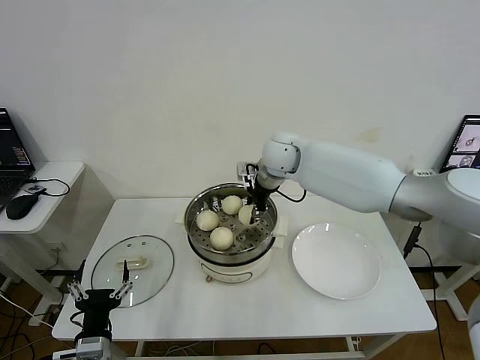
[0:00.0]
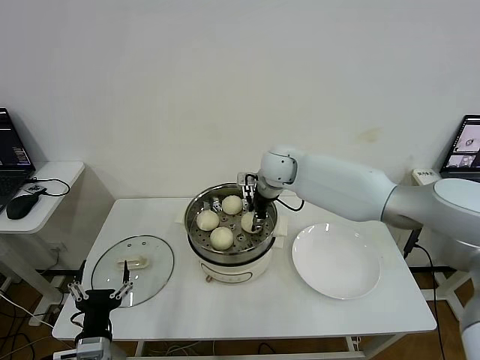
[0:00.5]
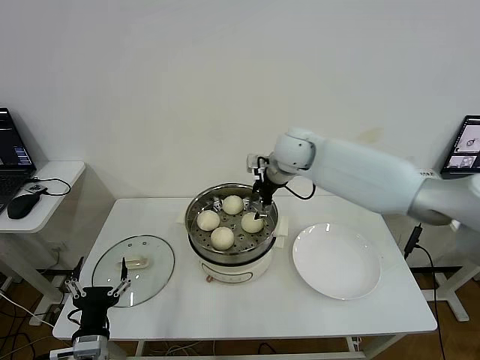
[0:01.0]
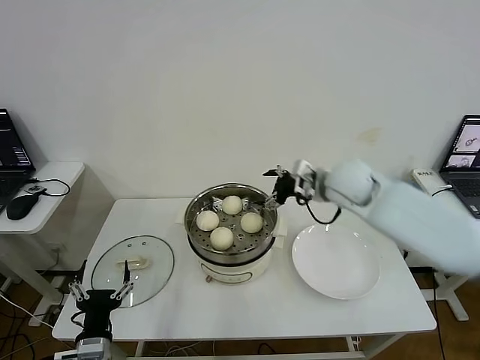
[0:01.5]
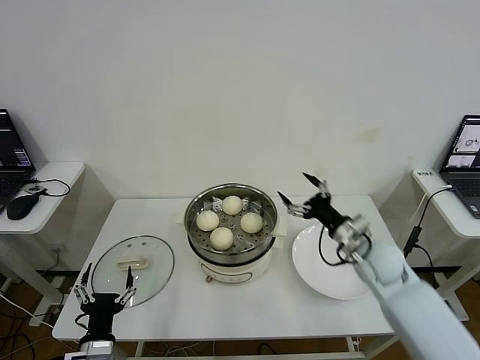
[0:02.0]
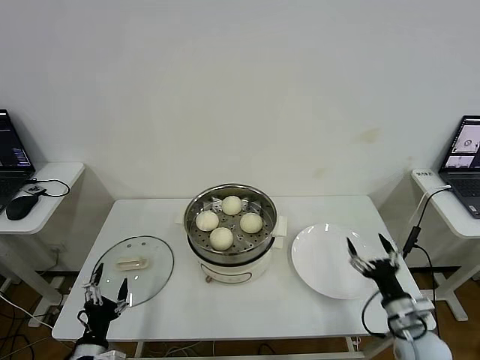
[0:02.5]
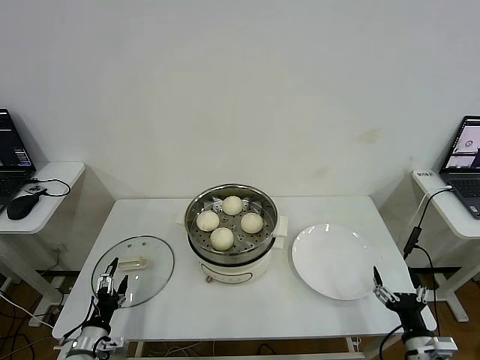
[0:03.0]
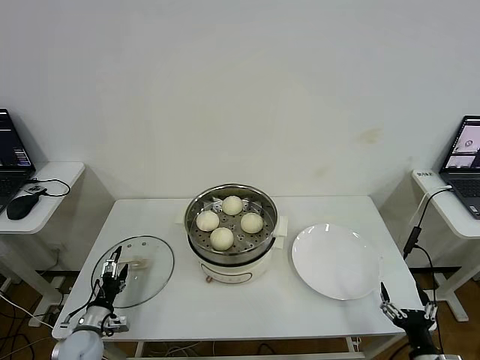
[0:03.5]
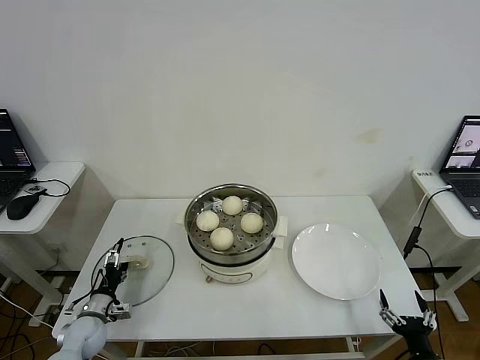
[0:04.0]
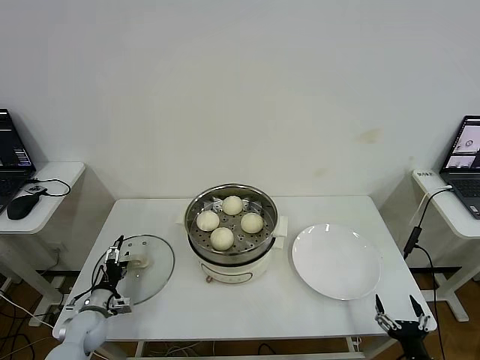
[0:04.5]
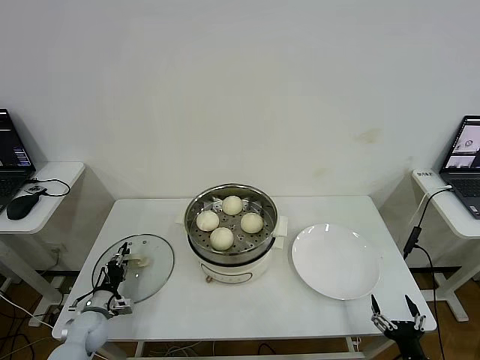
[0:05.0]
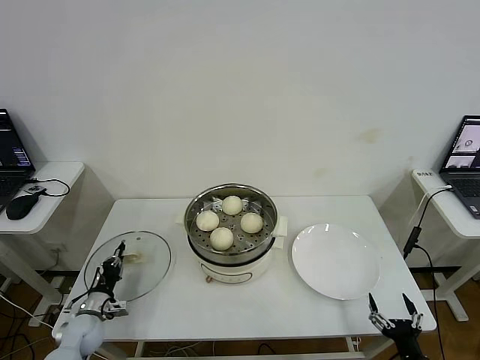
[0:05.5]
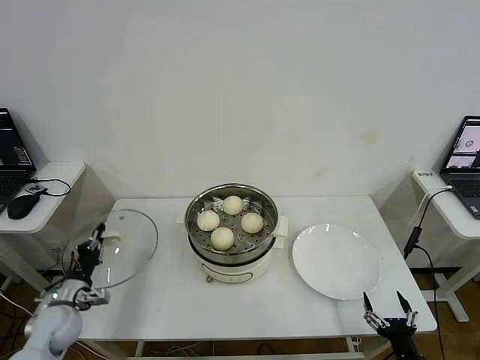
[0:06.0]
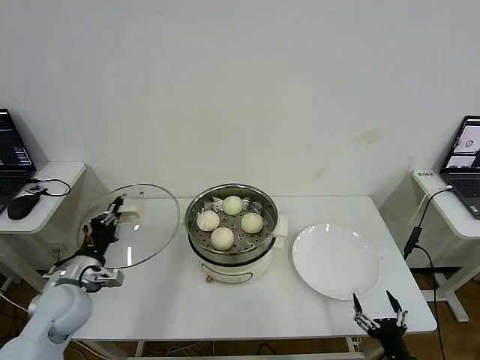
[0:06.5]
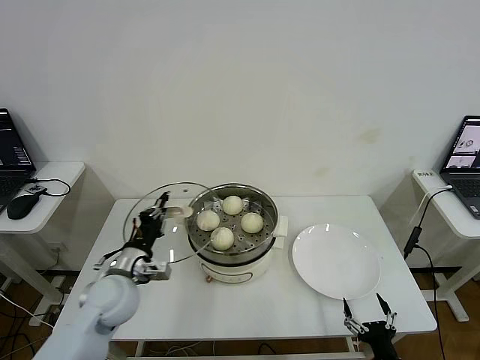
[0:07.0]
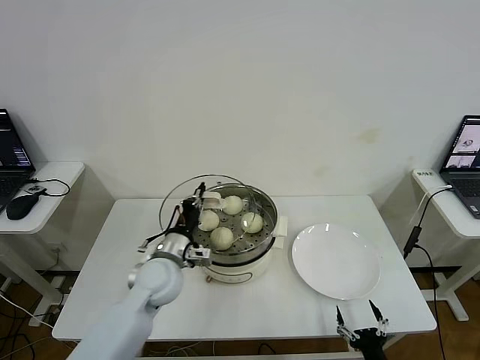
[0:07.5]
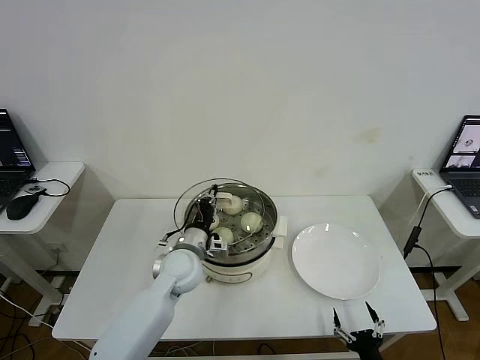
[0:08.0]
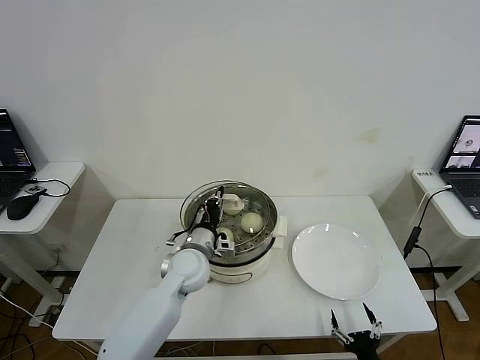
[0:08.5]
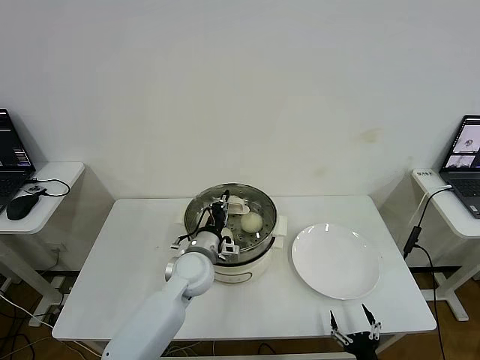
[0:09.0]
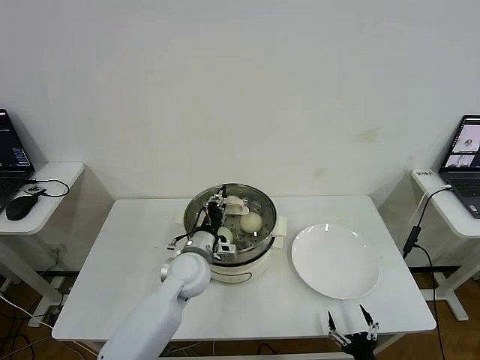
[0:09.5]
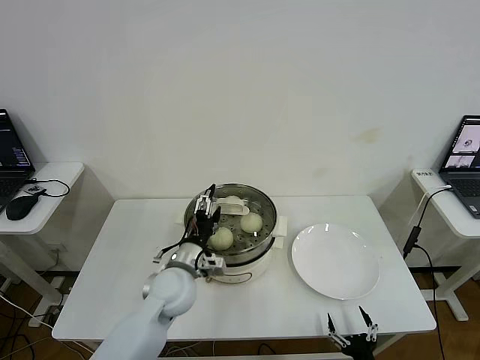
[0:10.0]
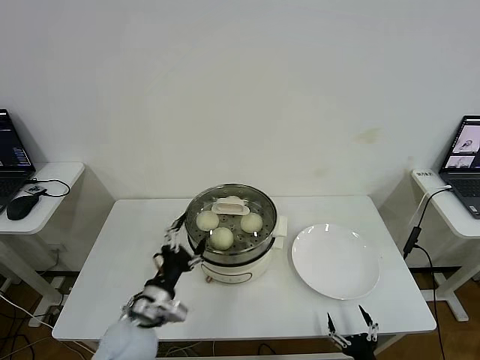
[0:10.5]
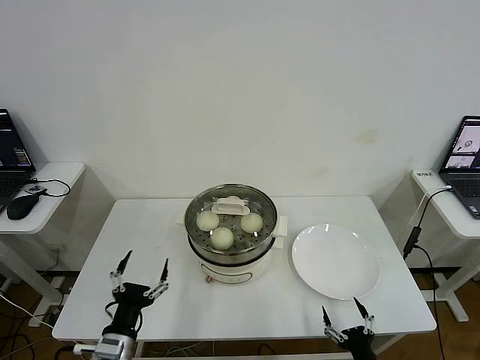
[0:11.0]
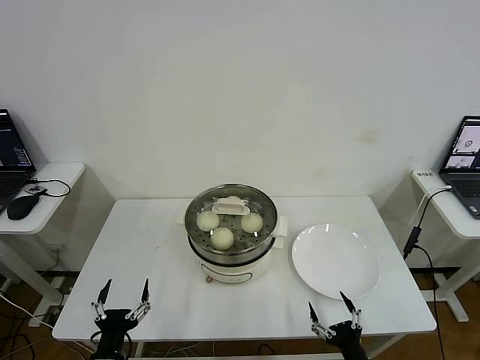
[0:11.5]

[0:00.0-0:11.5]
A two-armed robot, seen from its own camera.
Step, 0:01.5 to 0:05.0: Grasp the pot lid with left gripper.
Step, 0:06.0 to 0:10.5: Place the pot lid on the steamer with left gripper.
0:00.0 to 0:02.0: The right gripper shifts approximately 30 cm to the right, backward and downward, and opens its fingers.
0:02.0 to 0:04.0: The right gripper shifts some 30 cm backward and downward. Meanwhile the left gripper heads forward, to the left and downward, covering approximately 20 cm.
0:04.0 to 0:06.0: The left gripper heads upward, covering some 10 cm, and closes.
0:06.0 to 0:07.5: The left gripper travels to the right and upward by approximately 25 cm. Meanwhile the right gripper heads to the left, covering approximately 5 cm.
0:07.5 to 0:09.5: The left gripper heads to the right, covering roughly 5 cm.
0:09.5 to 0:11.5: The left gripper shifts roughly 30 cm backward and to the left, and opens its fingers.

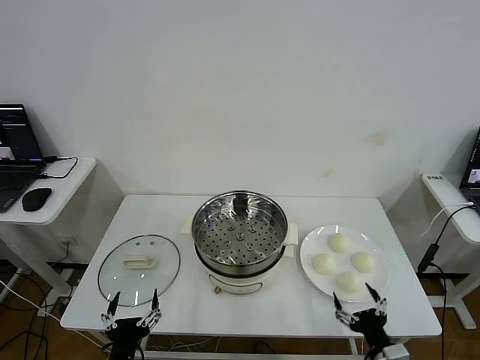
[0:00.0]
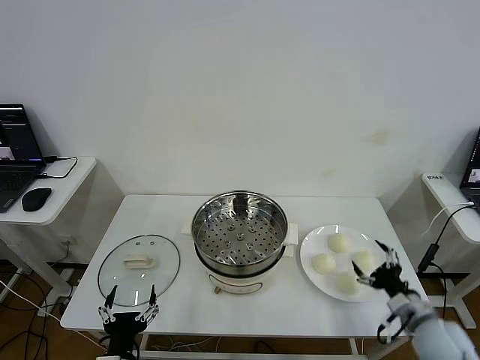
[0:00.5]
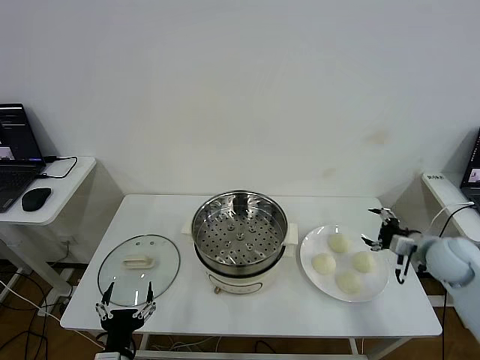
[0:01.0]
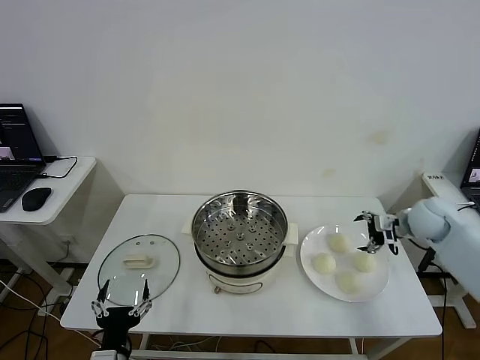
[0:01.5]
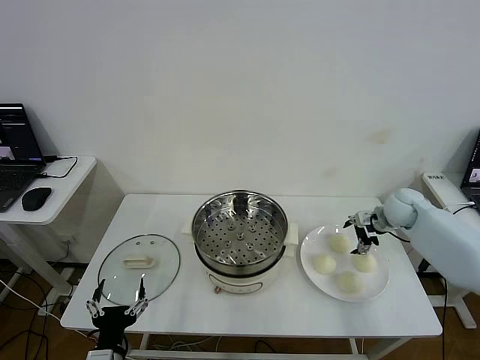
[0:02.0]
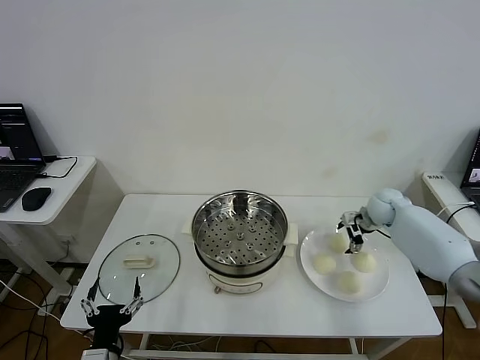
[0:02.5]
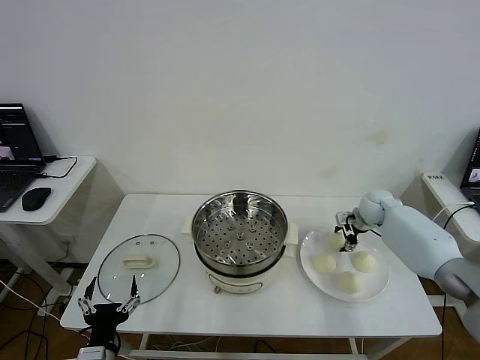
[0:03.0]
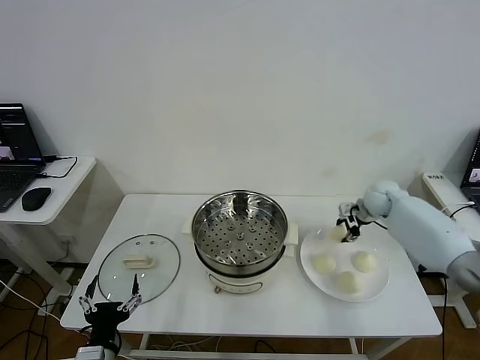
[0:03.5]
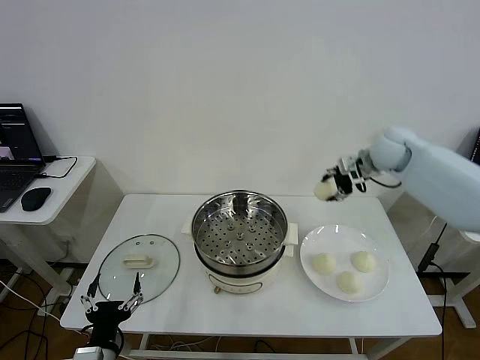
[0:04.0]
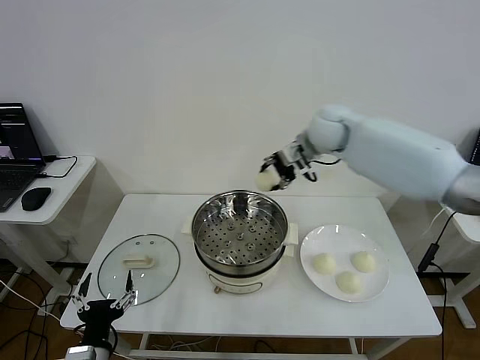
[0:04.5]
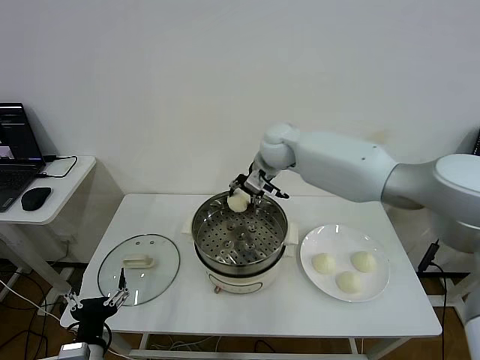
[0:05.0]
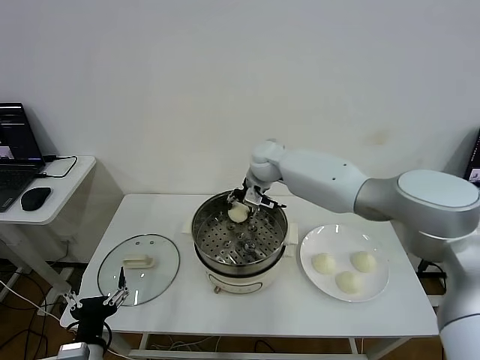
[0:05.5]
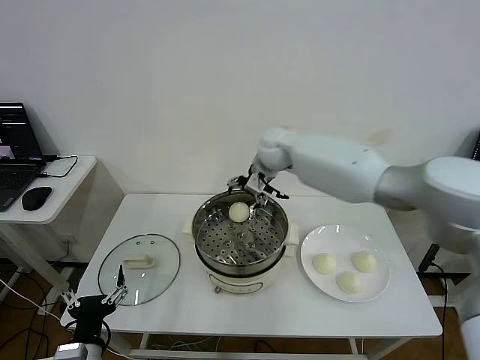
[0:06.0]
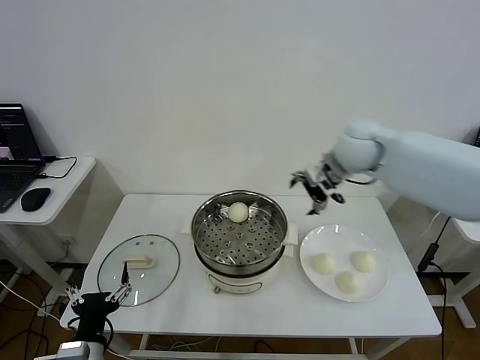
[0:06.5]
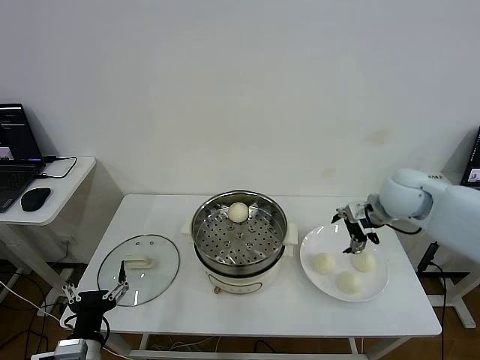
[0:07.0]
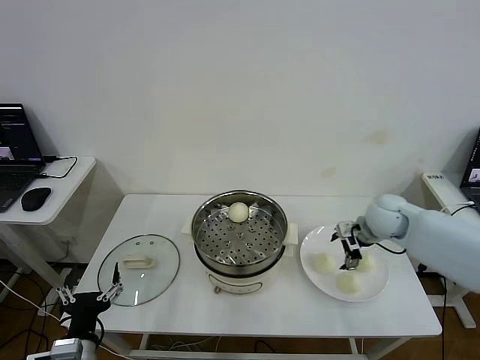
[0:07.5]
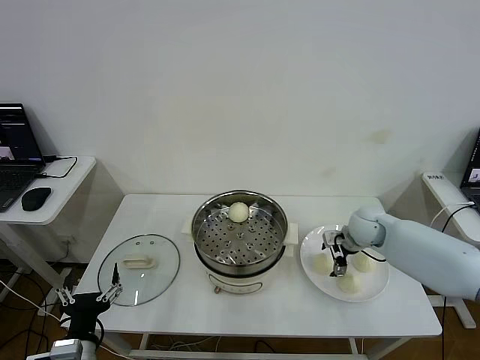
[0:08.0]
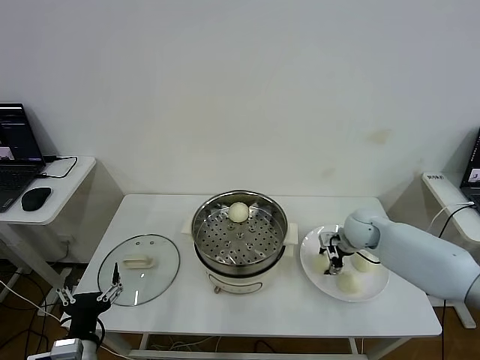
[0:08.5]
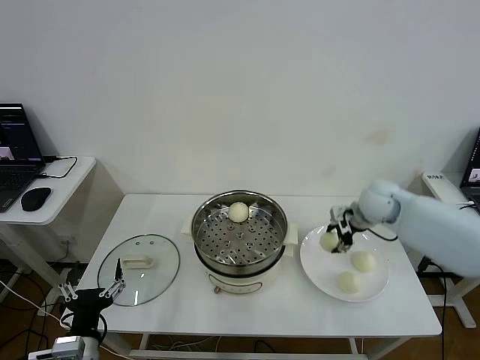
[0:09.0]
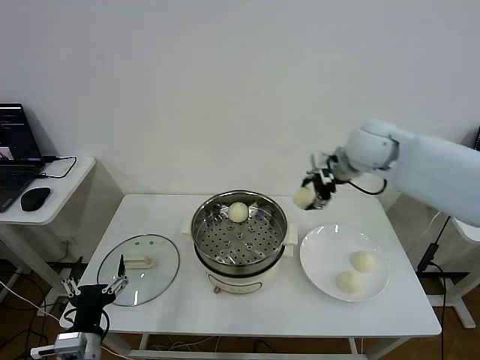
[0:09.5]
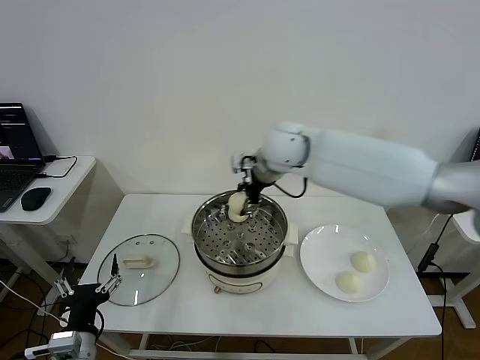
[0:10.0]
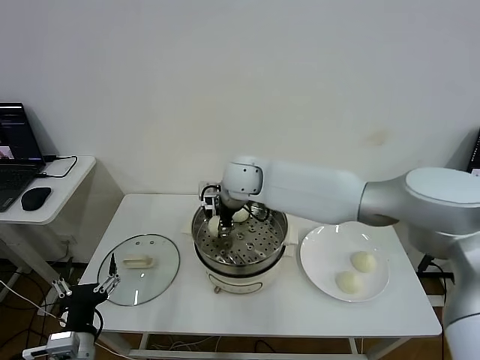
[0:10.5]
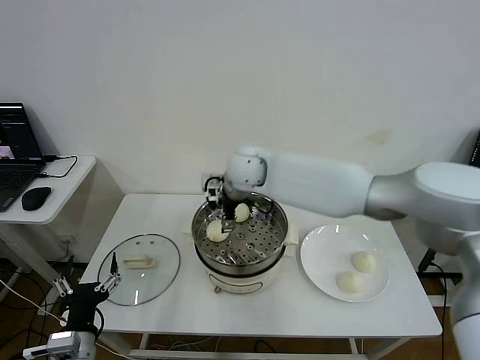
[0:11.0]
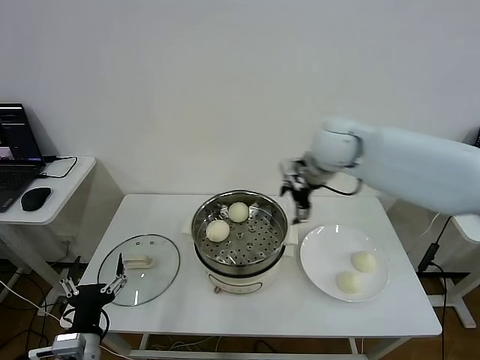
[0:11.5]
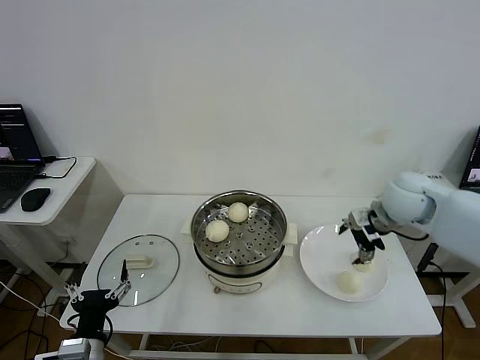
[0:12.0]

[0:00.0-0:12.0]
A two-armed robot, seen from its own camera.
Step, 0:00.0 to 0:02.5: Grasp the baozi in the plate with right gripper.
Step, 0:03.0 to 0:05.5: Place the baozi on the steamer with right gripper.
Step, 0:06.0 to 0:08.0: Grasp the baozi in the plate with right gripper.
Step, 0:08.5 to 0:10.5: Place the baozi on the steamer with right gripper.
0:02.0 to 0:04.0: The right gripper is displaced upward and to the left by some 20 cm, and closes.
0:04.0 to 0:06.0: The right gripper shifts about 20 cm to the left, and opens its fingers.
0:06.0 to 0:08.0: The right gripper heads to the right, downward and backward, covering roughly 30 cm.
0:08.0 to 0:10.0: The right gripper shifts some 30 cm to the left and upward, and closes up.
0:10.0 to 0:12.0: The right gripper is displaced to the right by some 30 cm, and opens.

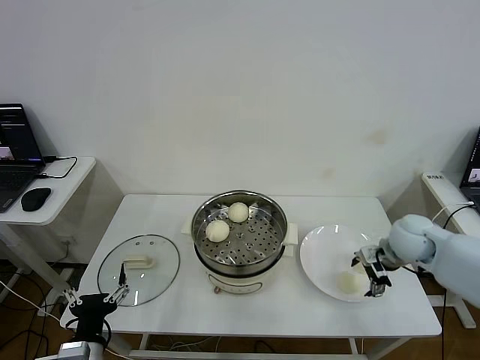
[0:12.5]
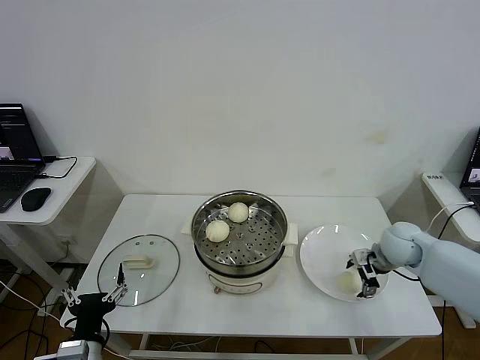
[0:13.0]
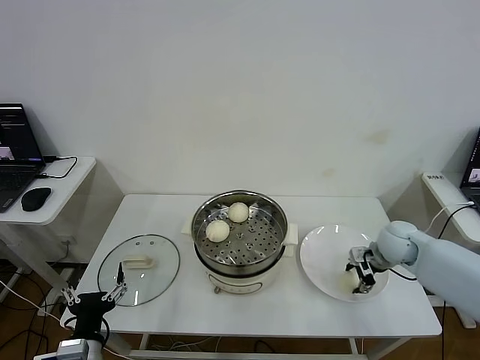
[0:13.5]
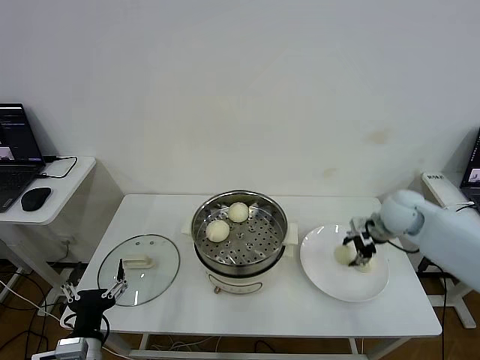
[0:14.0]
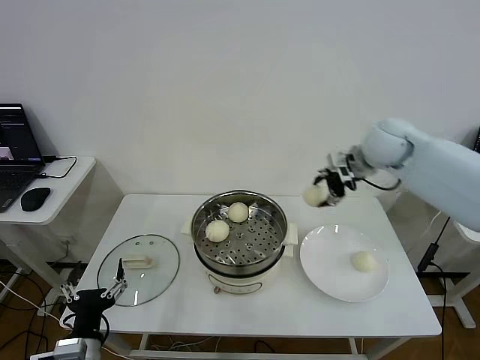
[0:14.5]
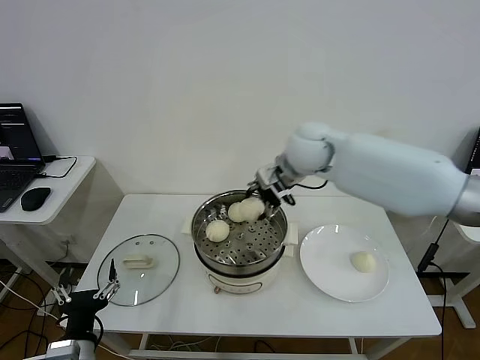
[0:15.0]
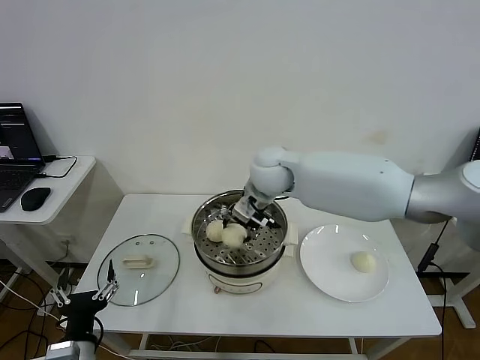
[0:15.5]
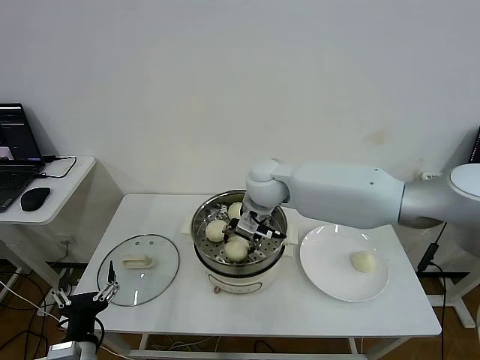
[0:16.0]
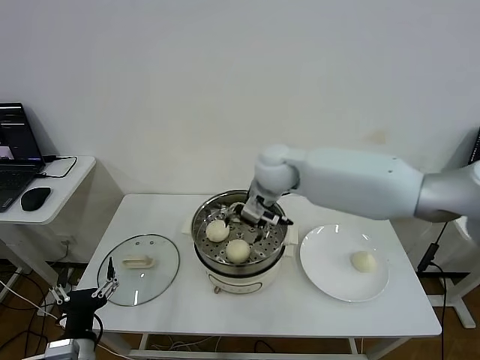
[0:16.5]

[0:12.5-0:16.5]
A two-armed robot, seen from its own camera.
Step, 0:13.5 to 0:16.0: Place the baozi on the steamer with right gripper.
0:12.5 to 0:14.5: The right gripper travels upward, forward and to the left by about 25 cm, and closes up.
0:14.5 to 0:16.5: The right gripper is displaced to the left by roughly 20 cm, and opens up.
